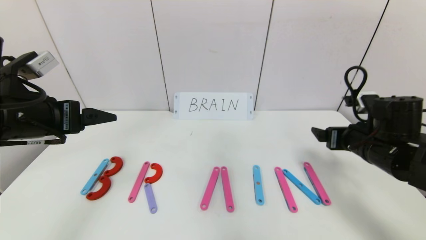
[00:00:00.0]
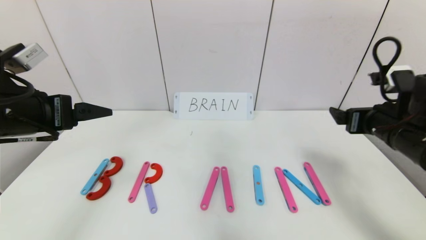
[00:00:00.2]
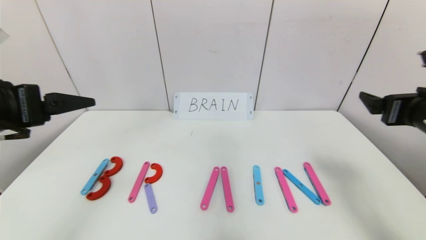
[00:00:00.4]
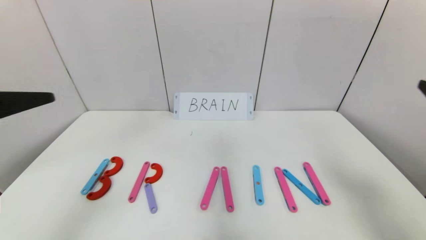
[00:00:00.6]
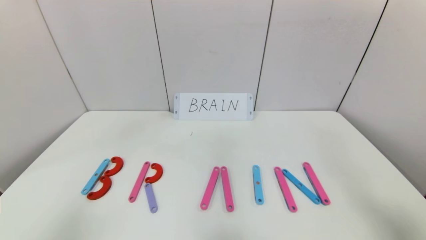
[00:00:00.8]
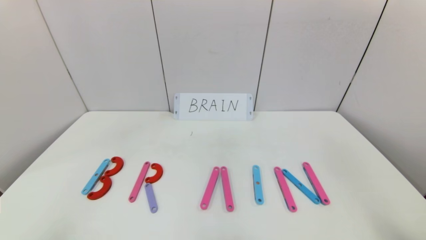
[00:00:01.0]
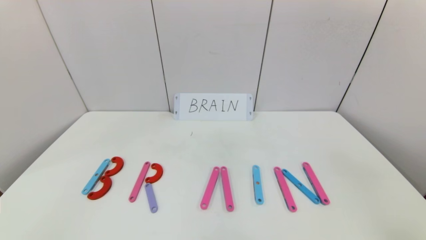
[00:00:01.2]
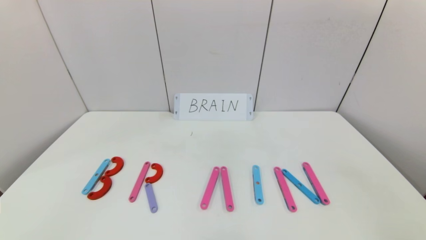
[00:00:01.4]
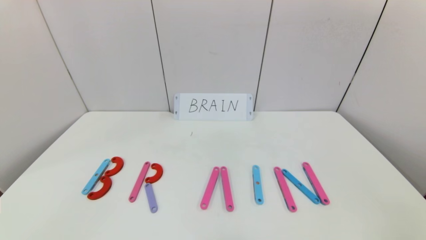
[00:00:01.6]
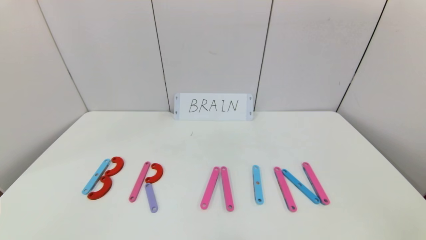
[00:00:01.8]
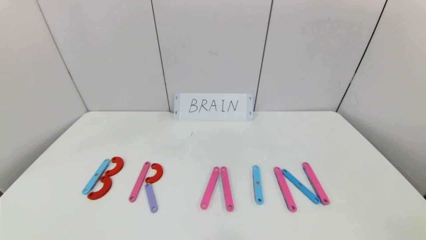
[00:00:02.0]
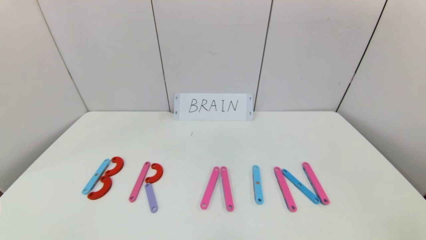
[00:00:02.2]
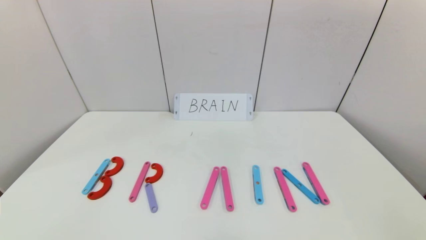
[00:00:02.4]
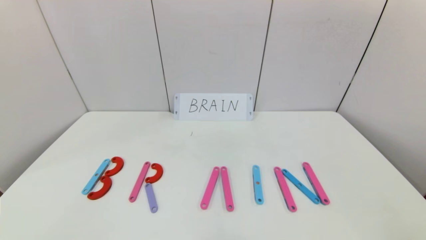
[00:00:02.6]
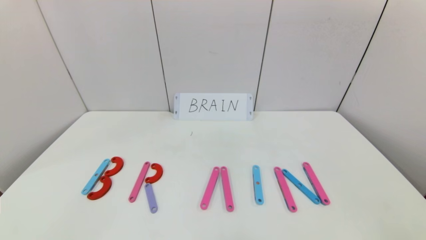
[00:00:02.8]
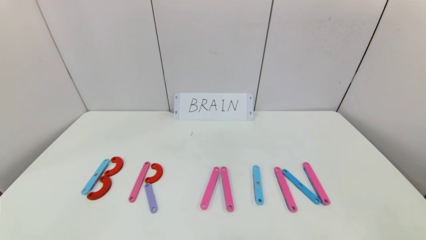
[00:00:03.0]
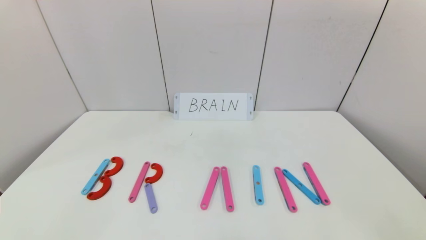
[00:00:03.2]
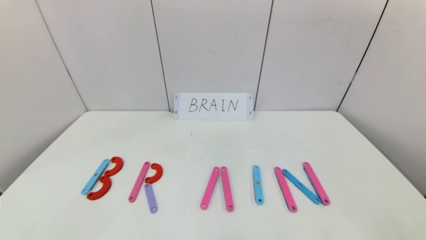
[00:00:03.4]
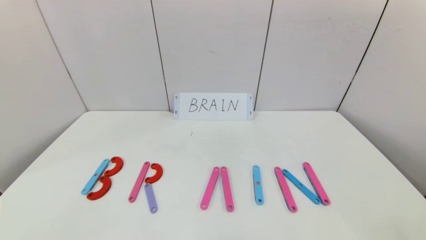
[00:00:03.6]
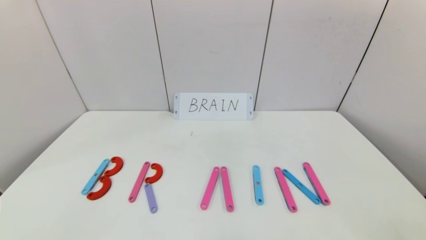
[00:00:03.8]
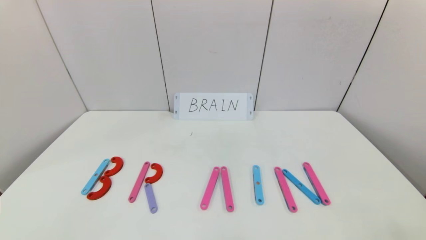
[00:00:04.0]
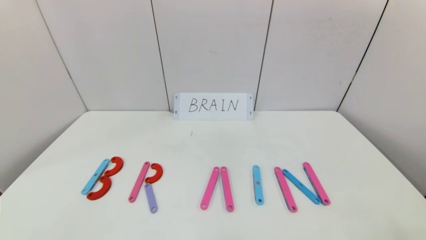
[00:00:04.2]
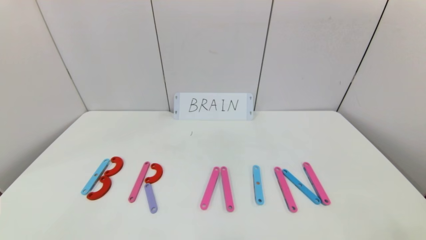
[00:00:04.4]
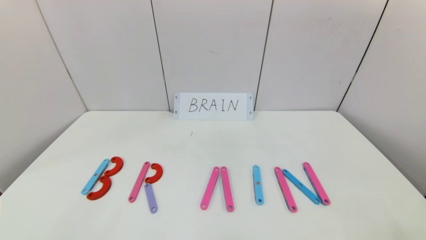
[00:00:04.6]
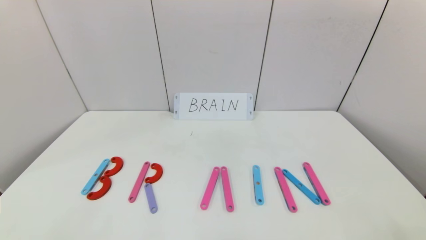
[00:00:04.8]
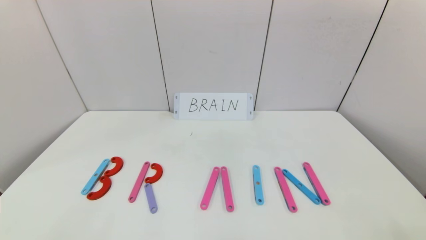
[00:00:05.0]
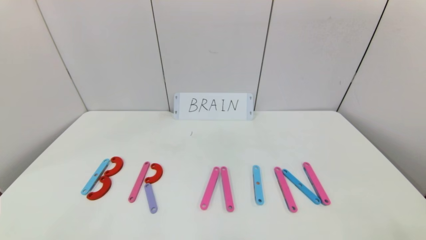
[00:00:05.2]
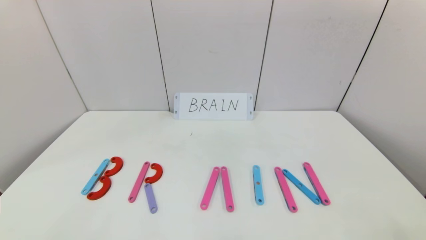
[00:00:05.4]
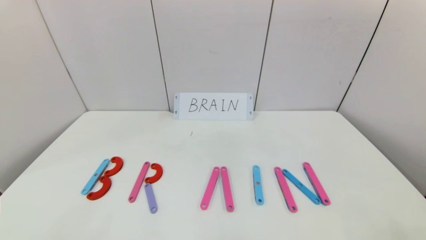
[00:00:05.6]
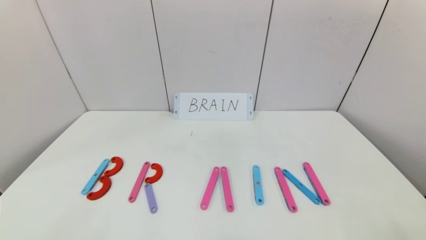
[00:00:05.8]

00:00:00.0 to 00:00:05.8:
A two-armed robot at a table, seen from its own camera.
Task of the whole recording: rearrange the word baai as brain.
00:00:00.0 to 00:00:01.4: The grippers both shift backward by roughly 35 cm.
